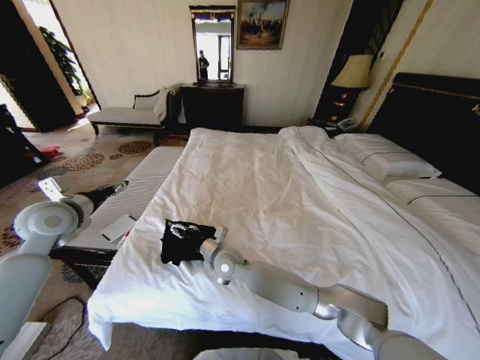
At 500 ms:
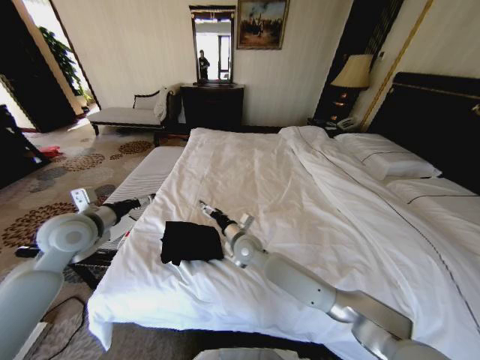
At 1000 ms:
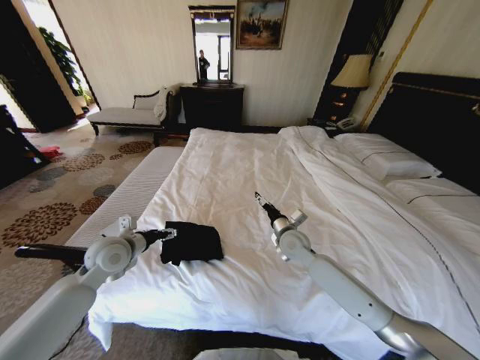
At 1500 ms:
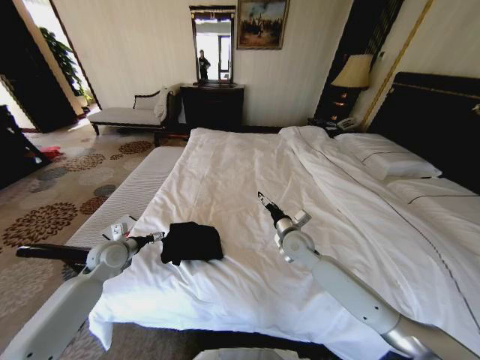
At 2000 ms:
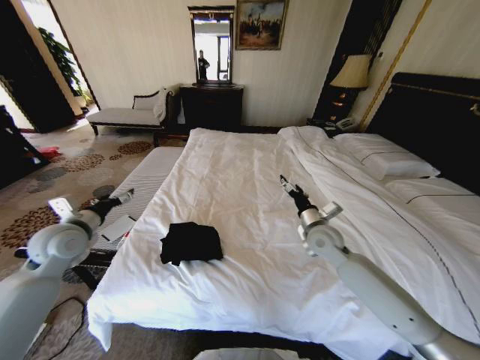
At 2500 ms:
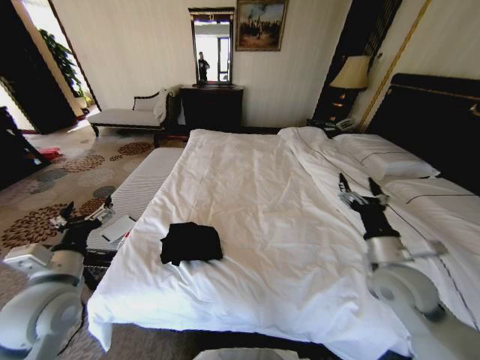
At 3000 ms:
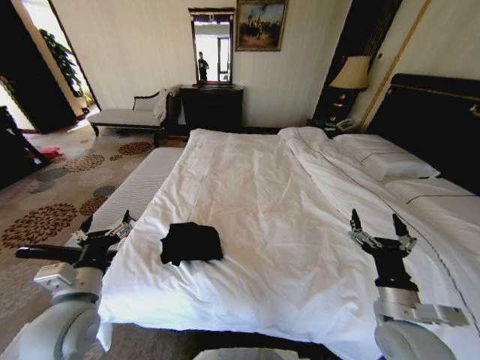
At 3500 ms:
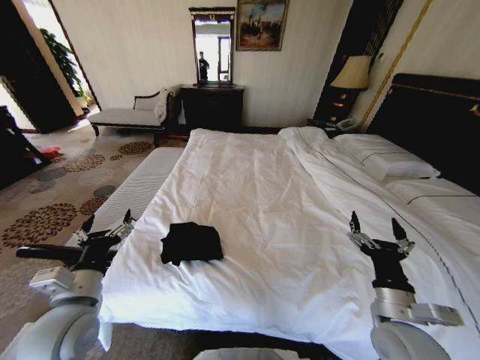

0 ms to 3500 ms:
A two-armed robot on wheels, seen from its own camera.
Task of the whole recording: Fold the clothes on the bed.
0 ms to 2000 ms: The right gripper shifts about 30 cm to the right; the left gripper reaches roughly 15 cm downward, then returns.
2000 ms to 3500 ms: The left gripper is displaced backward and to the right by some 20 cm. Meanwhile the right gripper goes roughly 25 cm backward.
